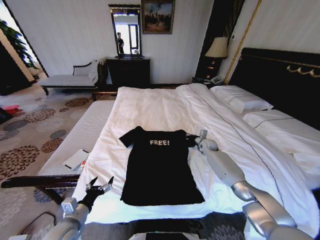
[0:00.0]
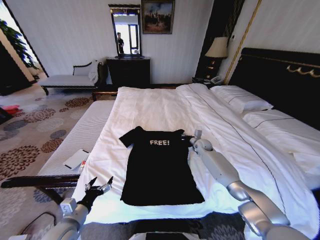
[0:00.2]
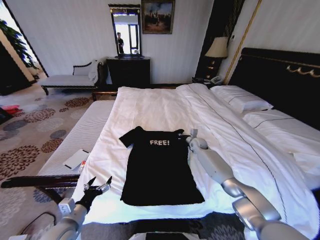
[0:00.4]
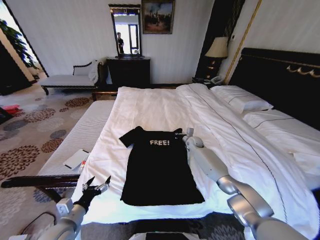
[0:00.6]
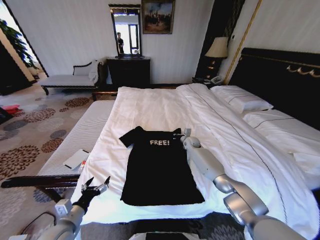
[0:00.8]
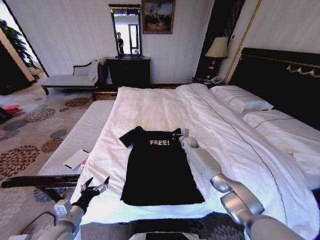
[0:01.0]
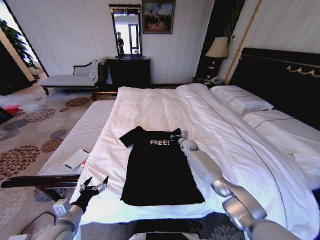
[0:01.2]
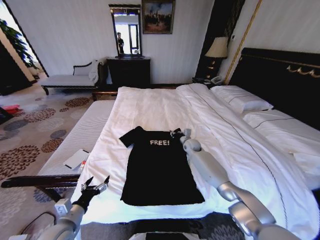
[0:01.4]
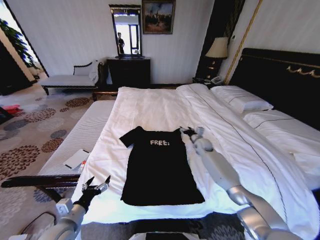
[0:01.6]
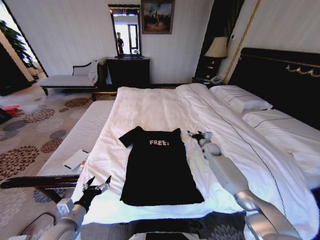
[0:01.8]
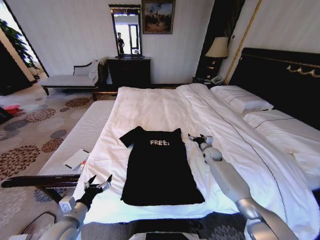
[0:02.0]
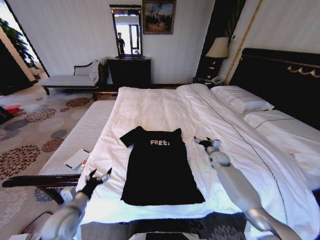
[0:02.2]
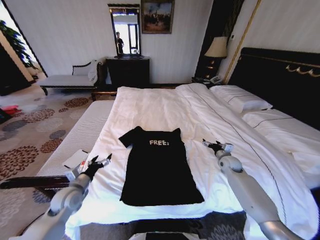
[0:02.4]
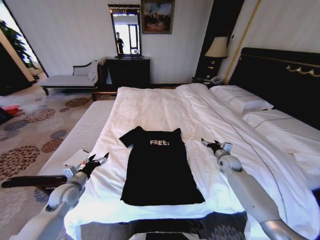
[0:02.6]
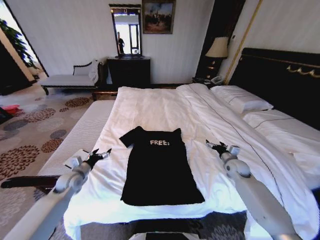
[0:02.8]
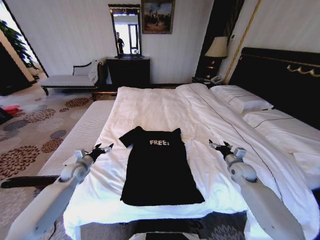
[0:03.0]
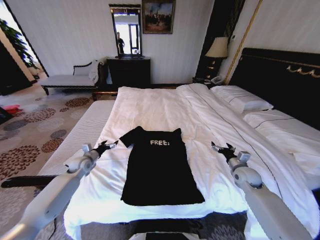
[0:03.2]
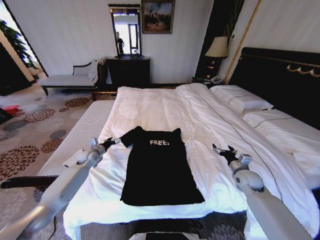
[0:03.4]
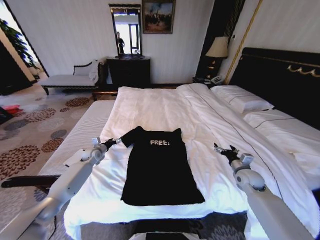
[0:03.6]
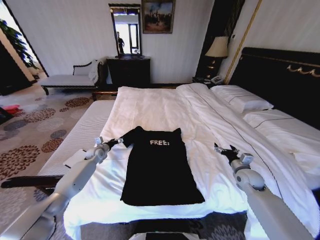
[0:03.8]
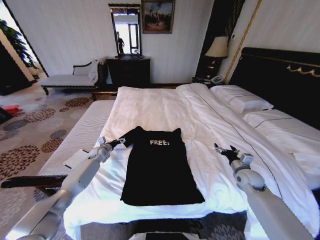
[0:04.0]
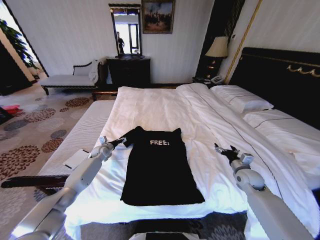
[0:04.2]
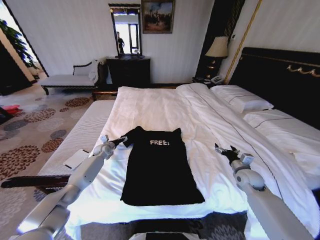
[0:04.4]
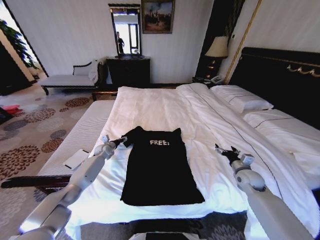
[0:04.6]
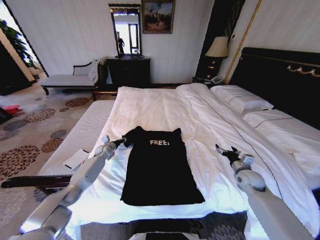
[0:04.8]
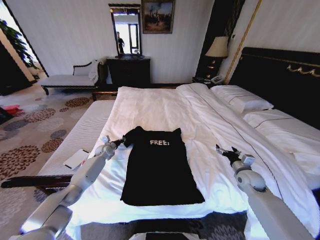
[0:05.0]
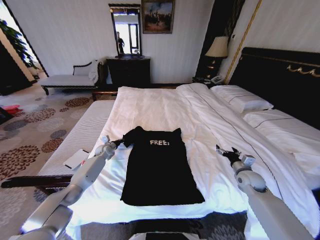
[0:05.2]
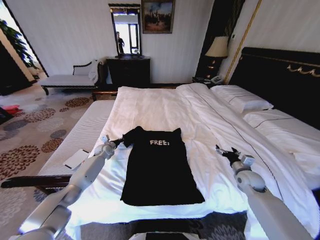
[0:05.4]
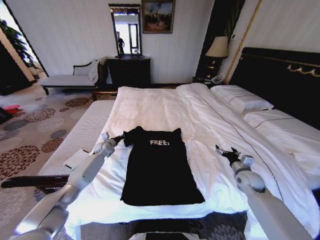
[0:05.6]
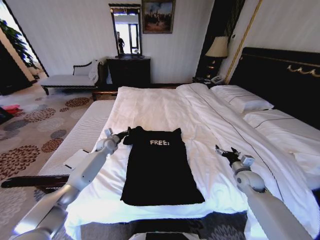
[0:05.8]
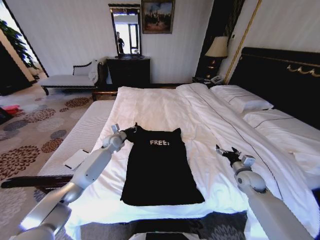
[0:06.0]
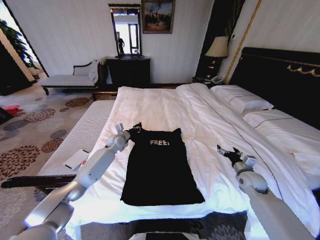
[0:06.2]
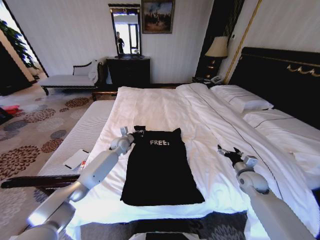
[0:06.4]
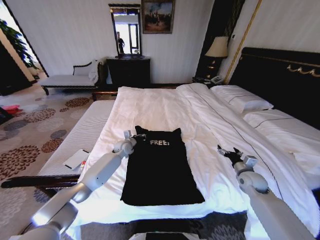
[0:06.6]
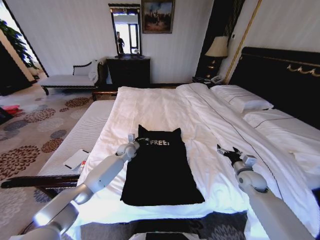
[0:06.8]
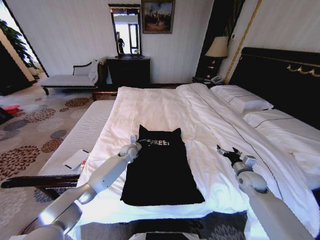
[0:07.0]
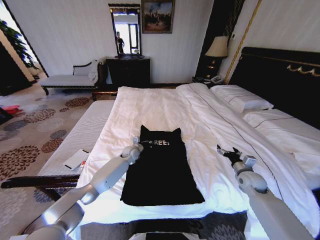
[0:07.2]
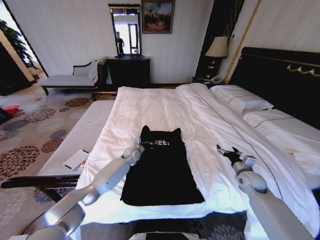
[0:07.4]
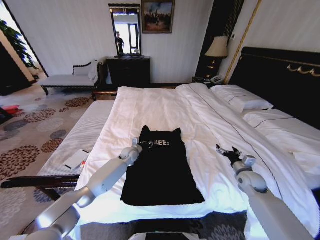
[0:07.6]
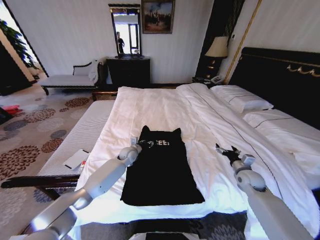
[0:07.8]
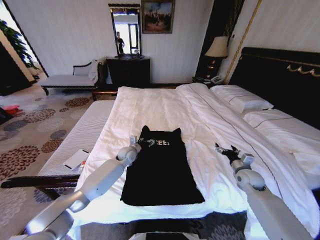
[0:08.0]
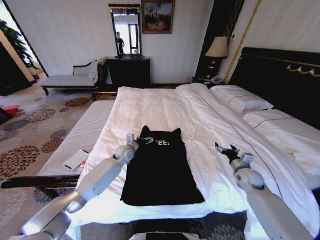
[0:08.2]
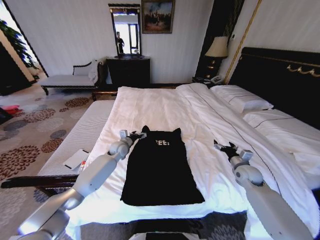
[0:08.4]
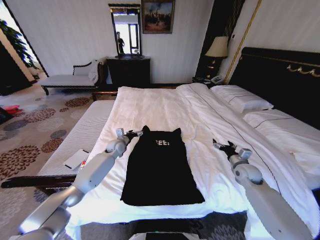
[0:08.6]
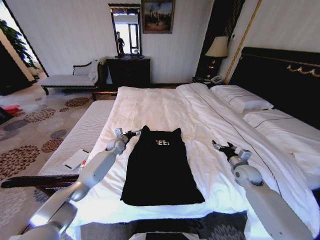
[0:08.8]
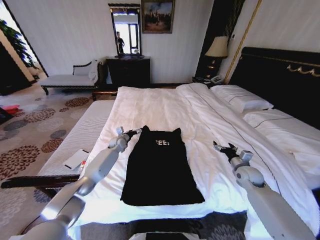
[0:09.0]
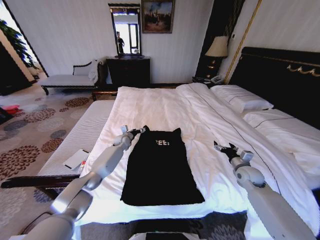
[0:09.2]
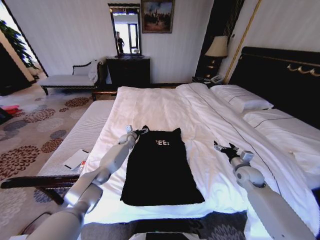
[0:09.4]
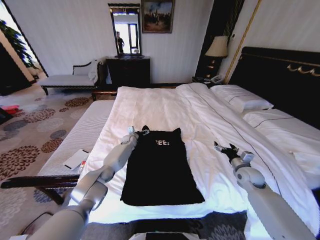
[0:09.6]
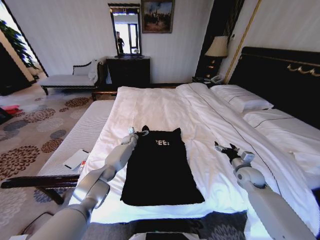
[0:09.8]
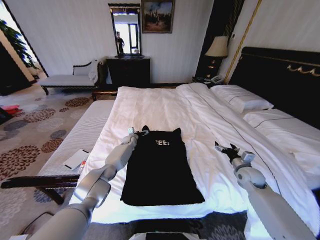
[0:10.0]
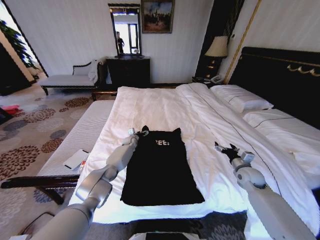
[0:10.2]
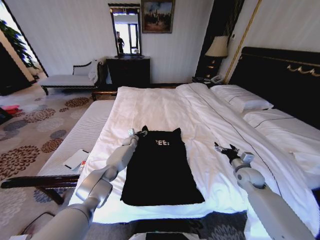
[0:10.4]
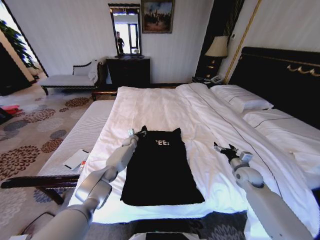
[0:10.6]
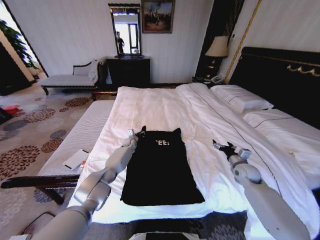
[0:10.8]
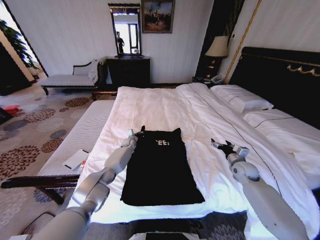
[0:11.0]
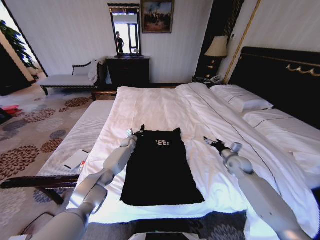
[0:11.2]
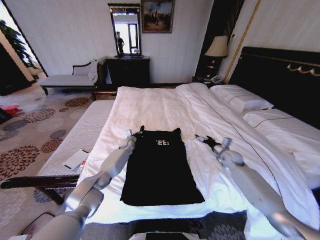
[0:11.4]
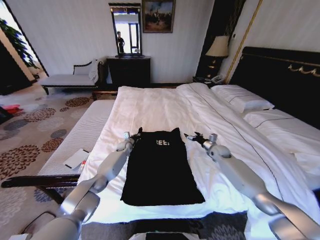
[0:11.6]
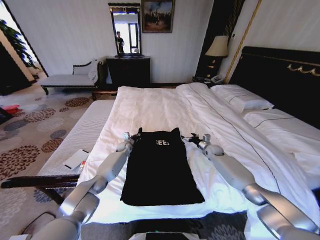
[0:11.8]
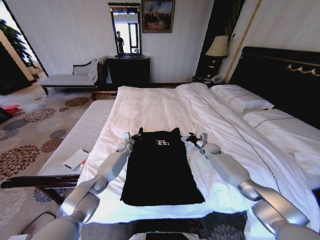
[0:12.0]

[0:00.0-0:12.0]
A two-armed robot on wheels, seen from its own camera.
Task of the whole recording: Fold the clothes on the bed.
0:00.0 to 0:01.6: The right gripper travels to the left and back again, about 10 cm each way, and opens up.
0:01.6 to 0:03.0: The right gripper travels backward and to the right by about 20 cm. The left gripper heads forward, covering roughly 25 cm.
0:03.0 to 0:04.4: The left gripper is displaced forward by approximately 15 cm.
0:04.4 to 0:06.0: The left gripper heads upward and to the right, covering approximately 15 cm, and closes.
0:06.0 to 0:07.6: The left gripper goes approximately 10 cm to the right and downward.
0:07.6 to 0:09.0: The left gripper heads to the left and forward, covering roughly 10 cm, and opens.
0:09.0 to 0:10.4: The left gripper goes approximately 10 cm to the right, downward and forward, and closes its fingers.
0:10.4 to 0:12.0: The left gripper closes up. The right gripper shifts approximately 20 cm forward.

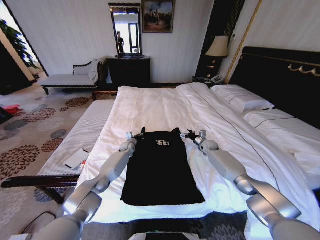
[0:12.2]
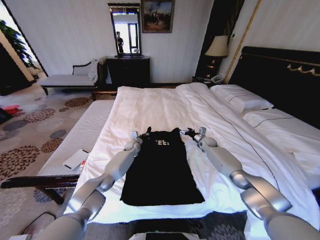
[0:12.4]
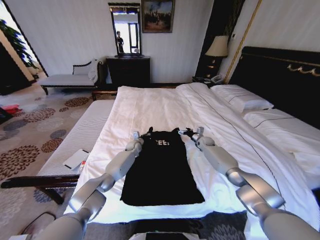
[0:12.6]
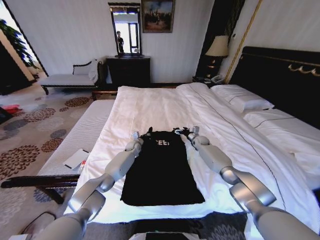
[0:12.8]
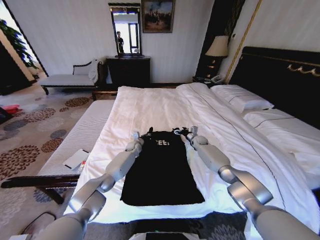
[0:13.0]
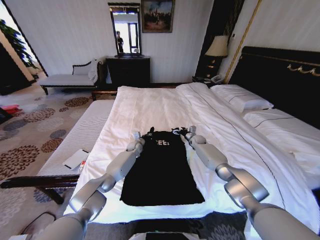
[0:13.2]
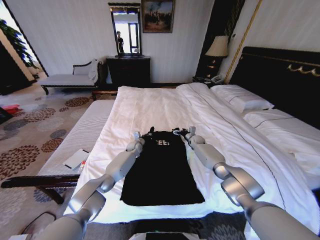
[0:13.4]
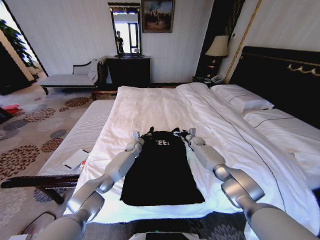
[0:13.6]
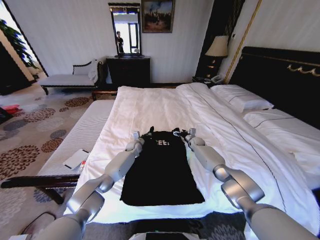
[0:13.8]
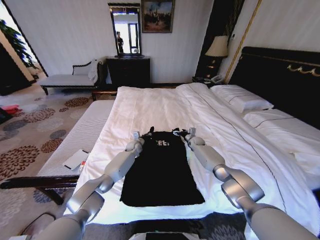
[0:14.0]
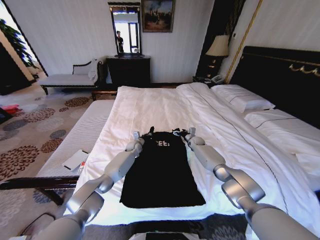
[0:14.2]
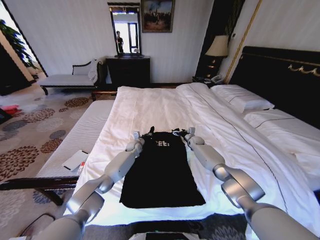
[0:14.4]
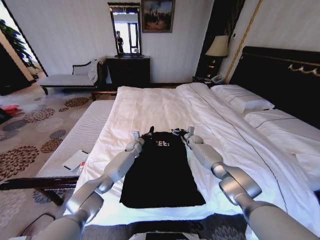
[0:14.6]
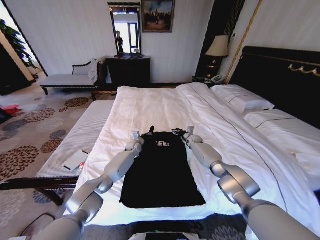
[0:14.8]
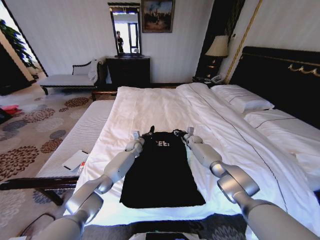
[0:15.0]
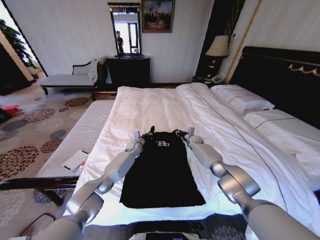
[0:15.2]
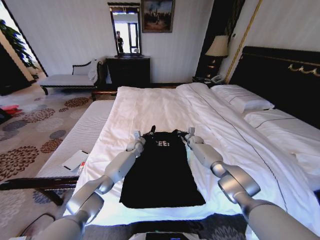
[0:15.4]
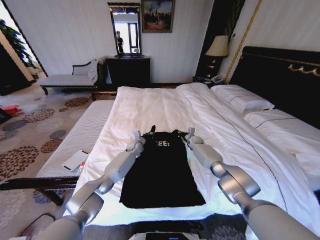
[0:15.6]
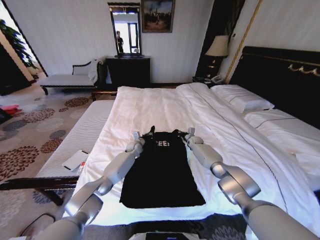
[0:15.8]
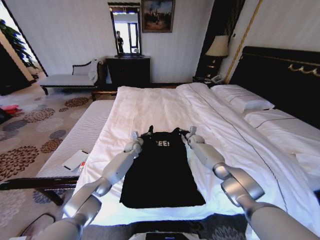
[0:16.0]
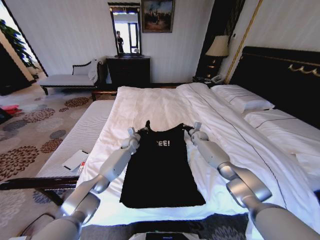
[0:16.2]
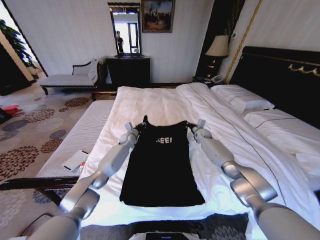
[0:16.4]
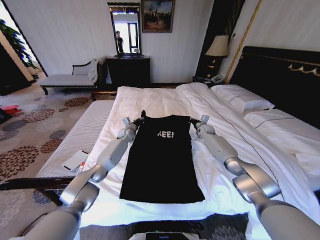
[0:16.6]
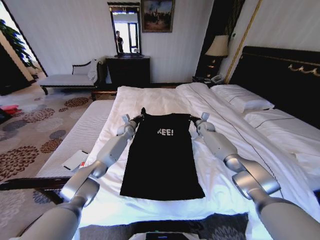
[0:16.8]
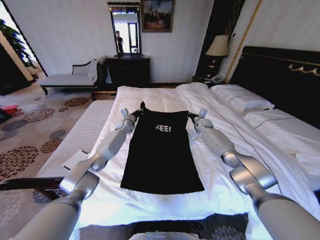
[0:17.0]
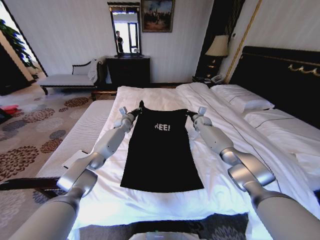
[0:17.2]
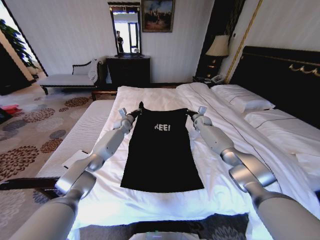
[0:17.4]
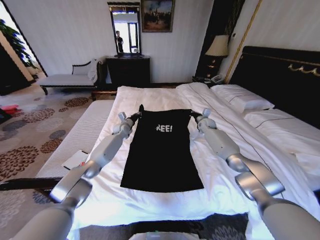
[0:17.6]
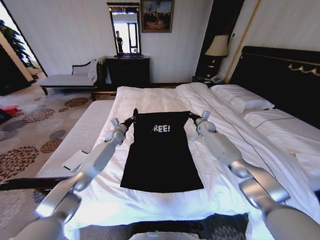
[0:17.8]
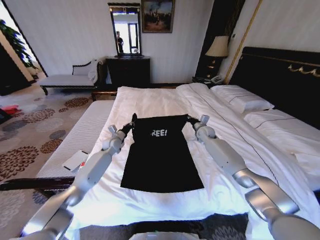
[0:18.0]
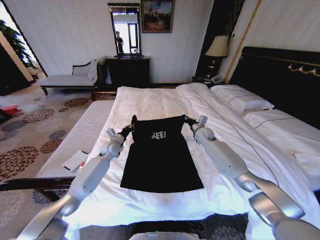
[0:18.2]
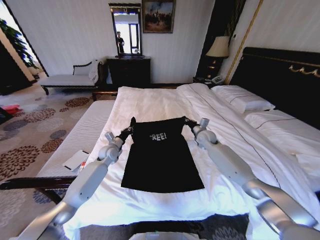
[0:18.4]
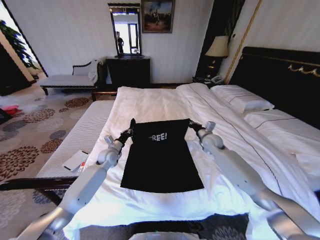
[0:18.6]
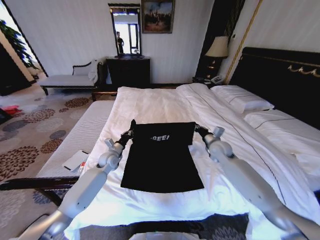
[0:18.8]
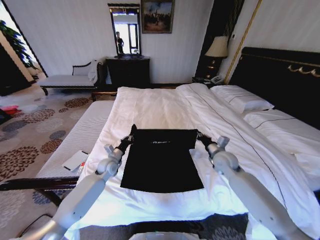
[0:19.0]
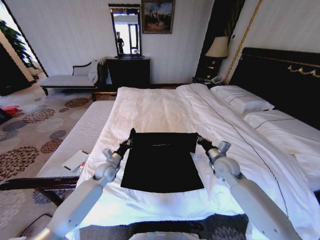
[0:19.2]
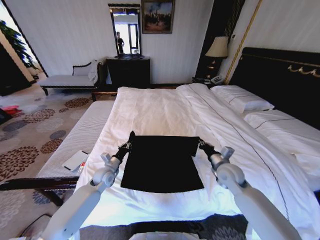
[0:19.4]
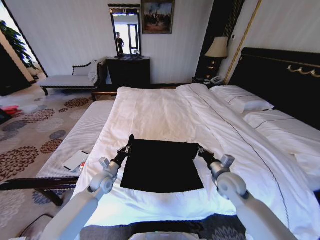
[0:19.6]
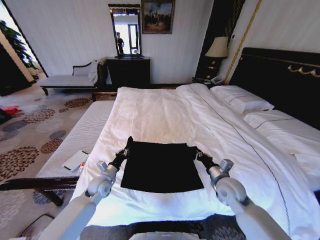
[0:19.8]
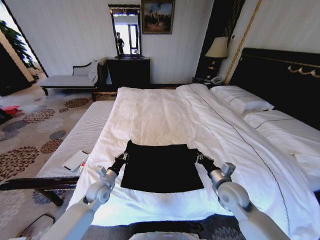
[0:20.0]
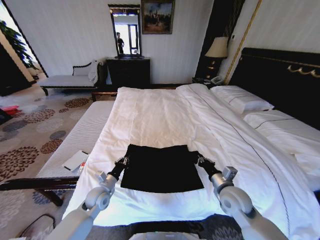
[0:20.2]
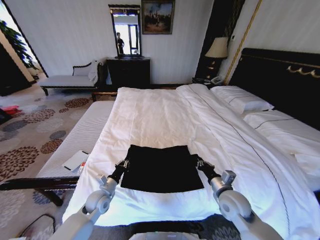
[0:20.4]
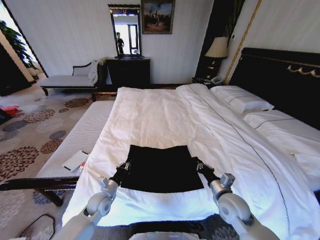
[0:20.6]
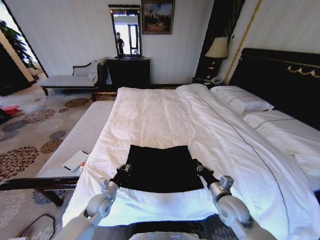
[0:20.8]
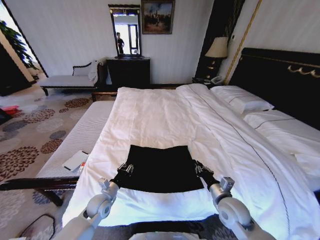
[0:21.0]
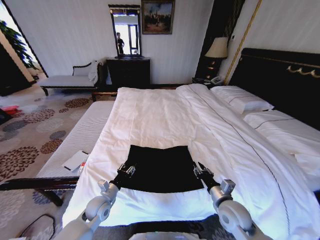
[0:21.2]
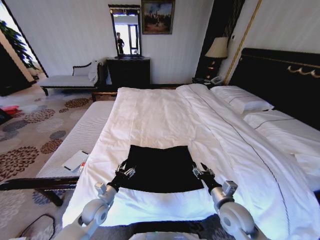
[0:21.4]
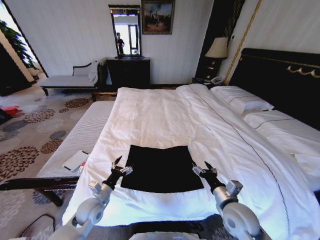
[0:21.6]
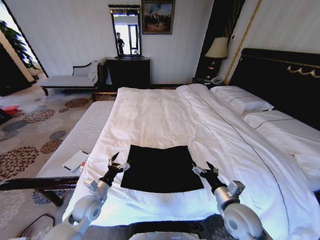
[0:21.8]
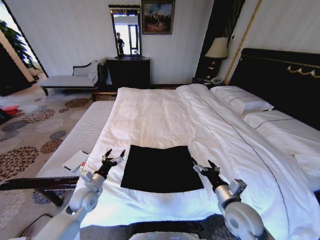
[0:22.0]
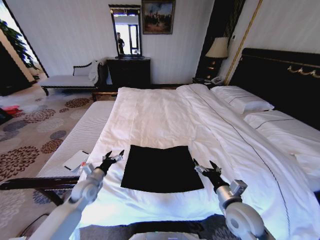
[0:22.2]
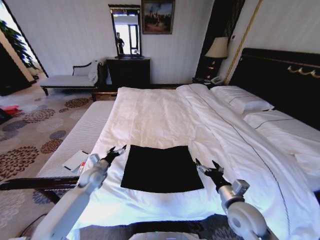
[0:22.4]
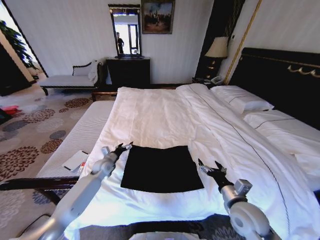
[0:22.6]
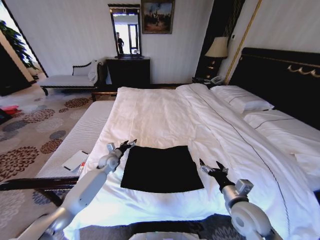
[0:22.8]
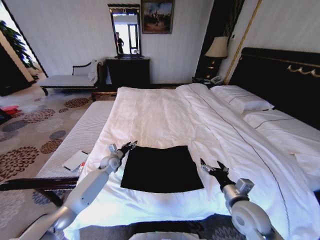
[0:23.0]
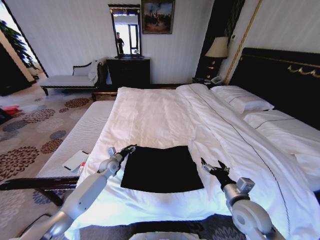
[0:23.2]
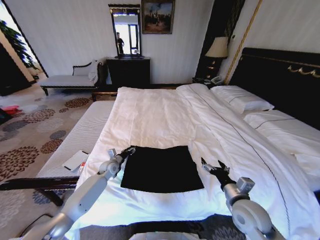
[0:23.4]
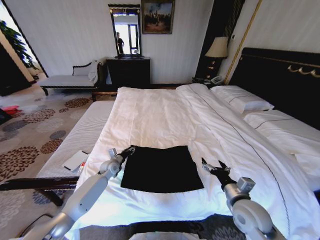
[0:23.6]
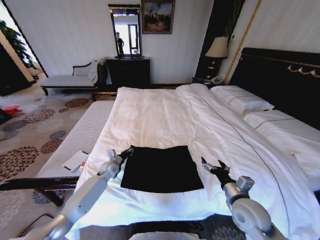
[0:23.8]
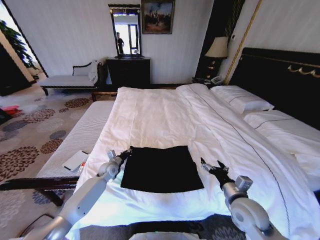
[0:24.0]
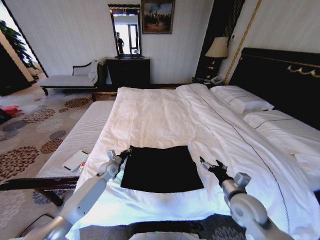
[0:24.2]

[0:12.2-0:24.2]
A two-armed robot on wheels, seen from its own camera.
Task of the whole recording: Fold the clothes on the bed.
0:12.2 to 0:13.8: The right gripper is displaced to the left by some 5 cm.
0:13.8 to 0:15.2: The right gripper closes.
0:15.2 to 0:16.6: The right gripper shifts some 10 cm upward. Meanwhile the left gripper moves upward and to the left, roughly 10 cm.
0:16.6 to 0:18.2: Both grippers move backward and to the left, roughly 10 cm.
0:18.2 to 0:19.8: The right gripper shifts about 30 cm backward; the left gripper travels backward by about 15 cm.
0:19.8 to 0:21.2: The grippers both shift backward by approximately 5 cm. The left gripper opens its fingers; the right gripper opens.
0:21.2 to 0:22.6: The left gripper goes some 20 cm forward, and opens its fingers. Meanwhile the right gripper opens up.
0:22.6 to 0:24.2: The left gripper closes up.
